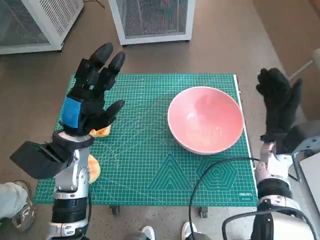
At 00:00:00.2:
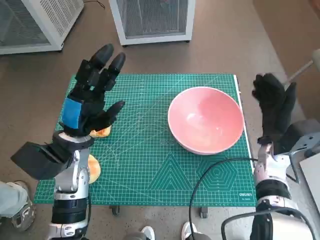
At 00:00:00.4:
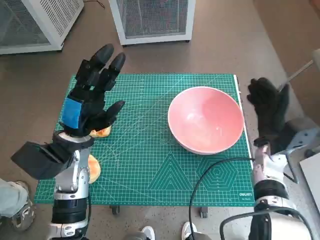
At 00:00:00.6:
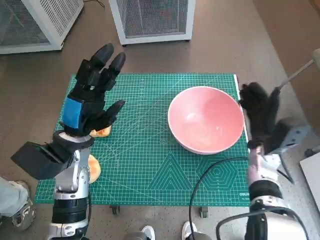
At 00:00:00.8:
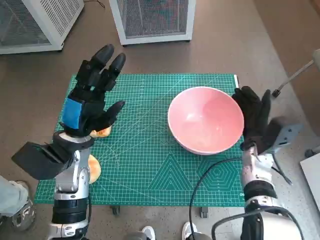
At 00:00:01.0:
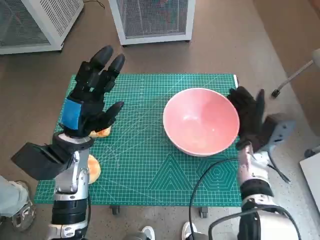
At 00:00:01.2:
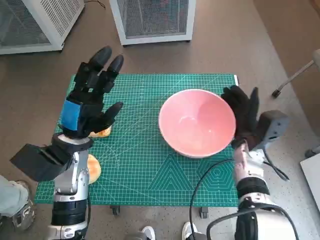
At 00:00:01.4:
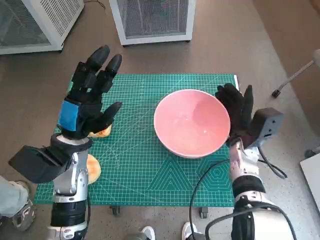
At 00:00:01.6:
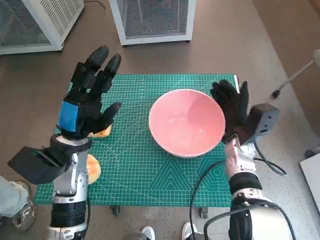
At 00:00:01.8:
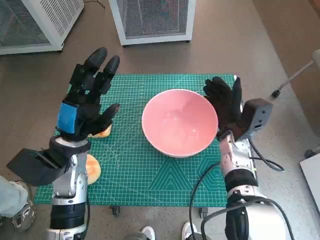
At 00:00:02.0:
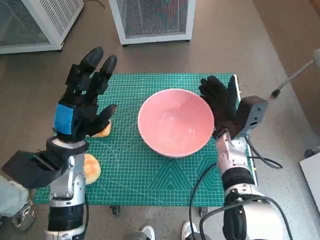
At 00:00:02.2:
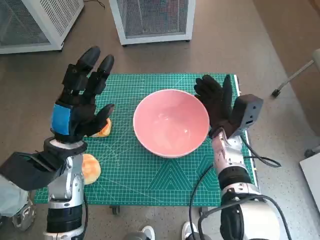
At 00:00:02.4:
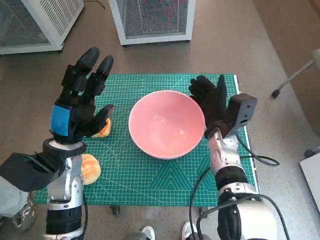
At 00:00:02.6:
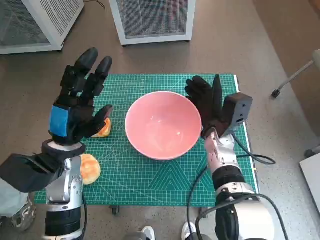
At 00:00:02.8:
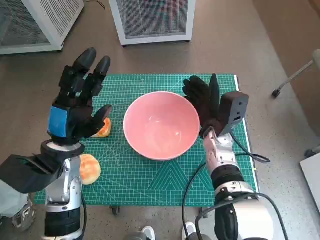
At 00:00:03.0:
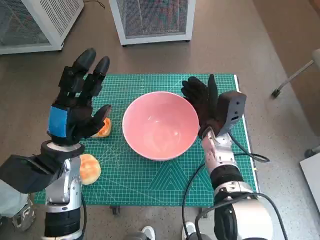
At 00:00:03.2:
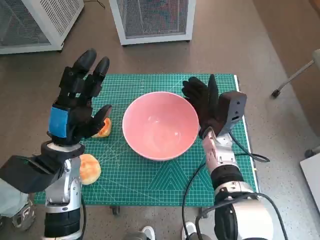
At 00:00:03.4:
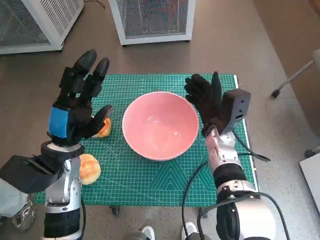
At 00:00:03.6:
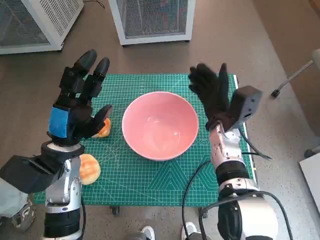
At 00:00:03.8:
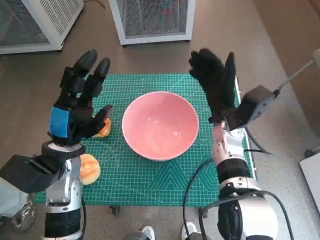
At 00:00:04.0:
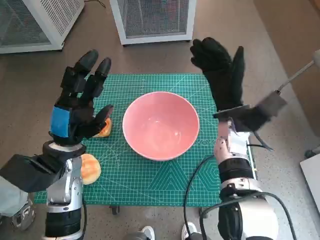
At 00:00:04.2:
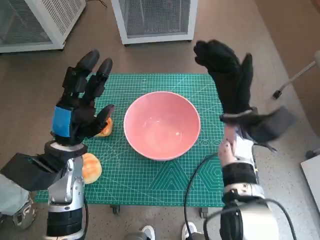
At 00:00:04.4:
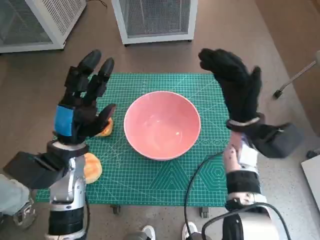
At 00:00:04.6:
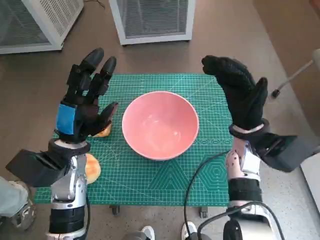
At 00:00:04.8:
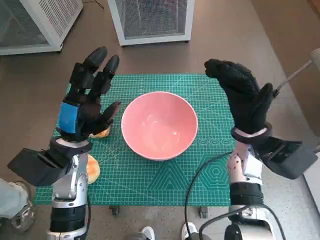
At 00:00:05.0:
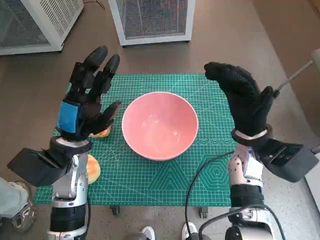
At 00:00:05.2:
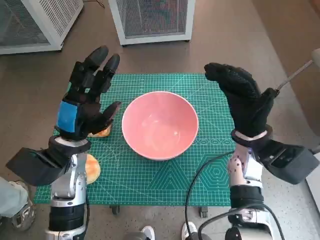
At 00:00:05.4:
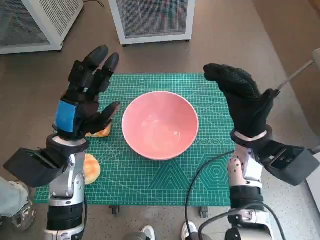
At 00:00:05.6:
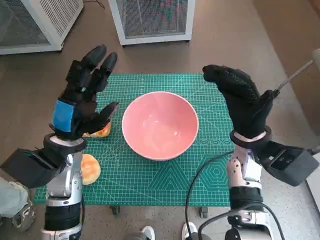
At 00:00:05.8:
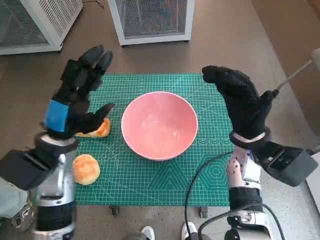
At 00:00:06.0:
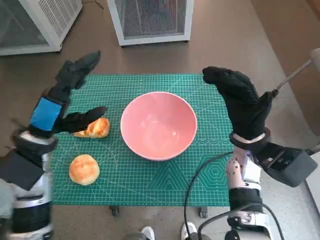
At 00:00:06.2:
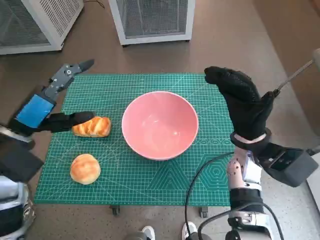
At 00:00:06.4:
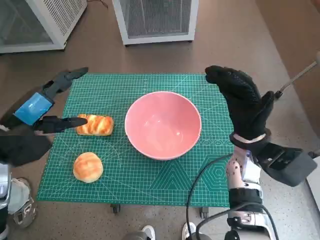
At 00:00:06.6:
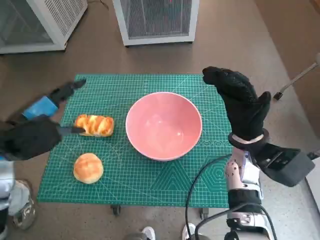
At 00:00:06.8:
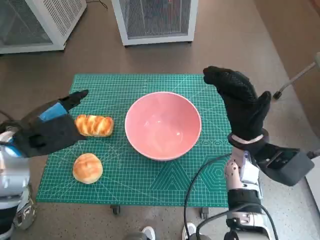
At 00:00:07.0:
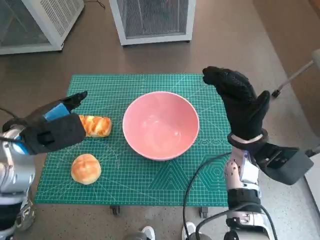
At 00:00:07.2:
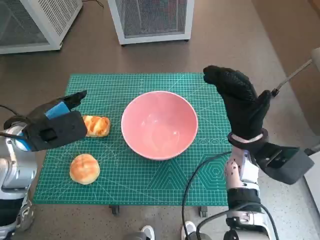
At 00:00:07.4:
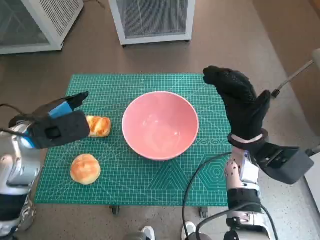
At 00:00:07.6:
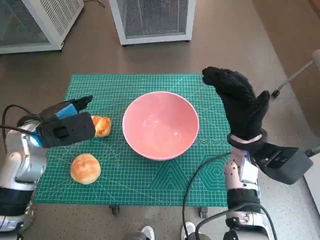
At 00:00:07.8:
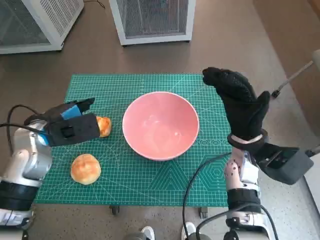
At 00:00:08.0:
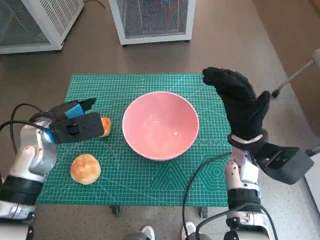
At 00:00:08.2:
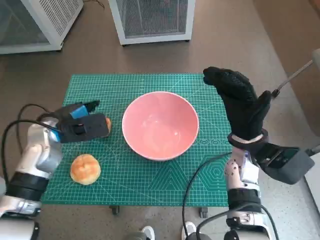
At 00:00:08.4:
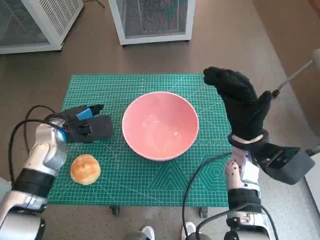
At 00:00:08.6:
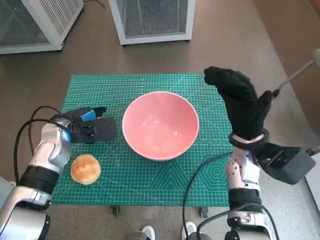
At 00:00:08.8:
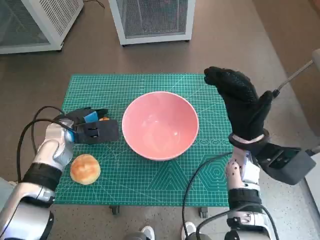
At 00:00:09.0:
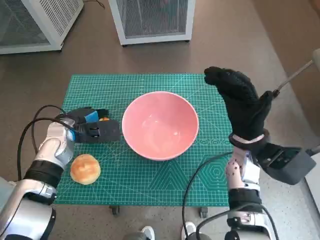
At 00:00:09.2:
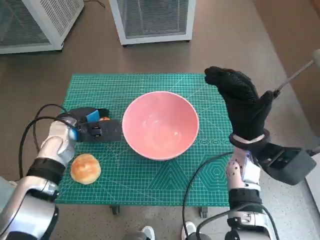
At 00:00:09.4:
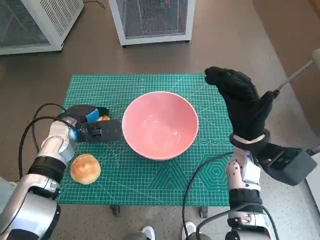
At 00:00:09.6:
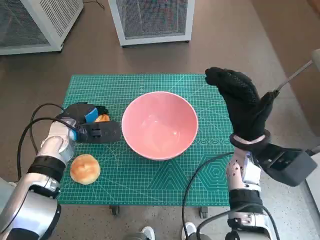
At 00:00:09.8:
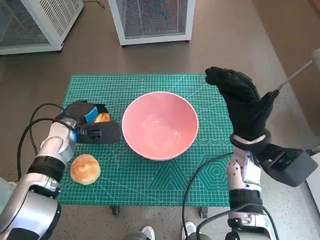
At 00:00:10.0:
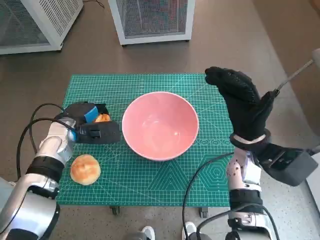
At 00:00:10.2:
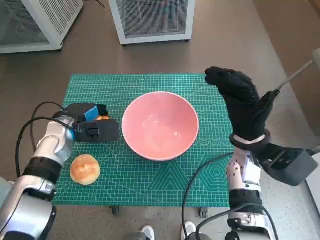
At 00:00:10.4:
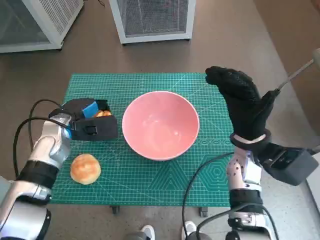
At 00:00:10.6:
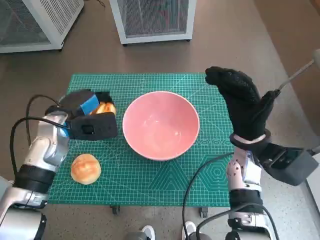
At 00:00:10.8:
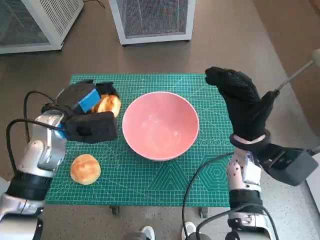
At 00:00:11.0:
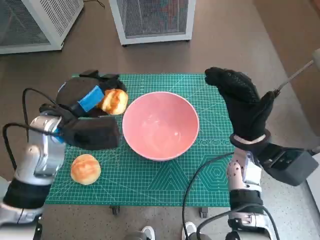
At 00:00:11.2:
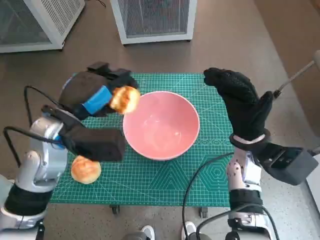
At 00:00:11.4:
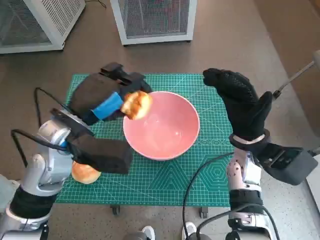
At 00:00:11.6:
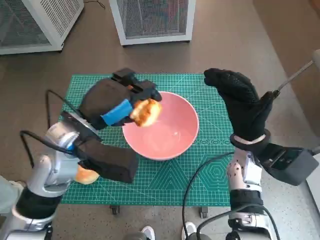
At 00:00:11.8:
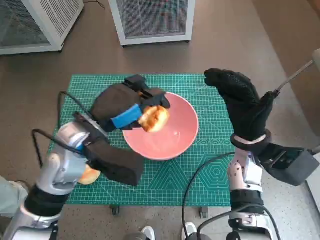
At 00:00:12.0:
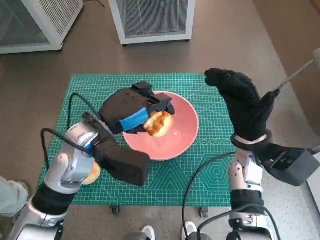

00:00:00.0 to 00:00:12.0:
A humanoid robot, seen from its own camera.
Task of the whole recording: Push the bowl into the center of the table and put the bread into the bowl.
Step, 00:00:00.0 to 00:00:03.4: Move the pink bowl to the center of table with right hand.
Step, 00:00:03.6 to 00:00:09.6: Grasp the long bread with left hand.
00:00:00.0 to 00:00:01.6: The right hand is displaced to the left by roughly 5 cm.
00:00:01.6 to 00:00:03.0: The right hand moves to the left, approximately 5 cm.
00:00:03.0 to 00:00:04.4: The right hand is displaced upward by about 5 cm.
00:00:04.4 to 00:00:06.0: The left hand shifts by roughly 5 cm.
00:00:07.6 to 00:00:09.0: The left hand shifts approximately 5 cm downward.
00:00:09.0 to 00:00:10.4: The hands make only small movements.
00:00:10.4 to 00:00:12.0: The left hand moves to the right, upward and backward, about 15 cm.

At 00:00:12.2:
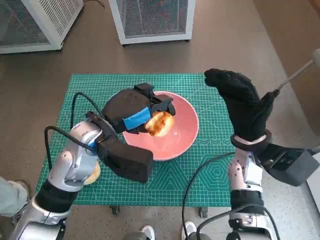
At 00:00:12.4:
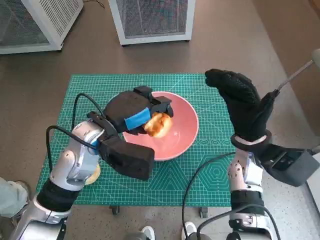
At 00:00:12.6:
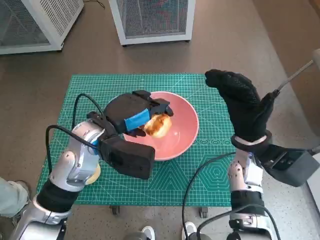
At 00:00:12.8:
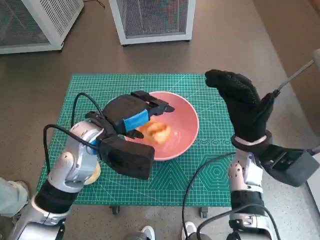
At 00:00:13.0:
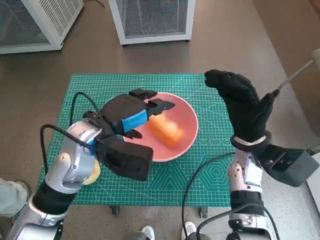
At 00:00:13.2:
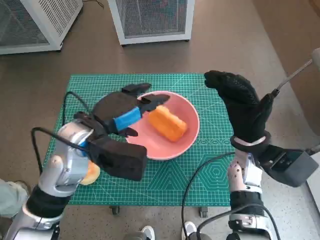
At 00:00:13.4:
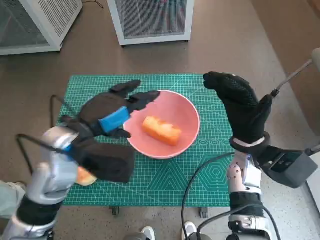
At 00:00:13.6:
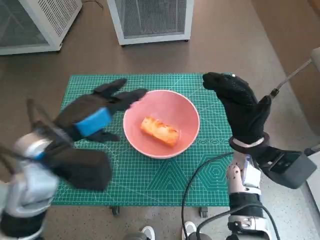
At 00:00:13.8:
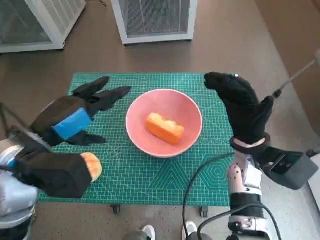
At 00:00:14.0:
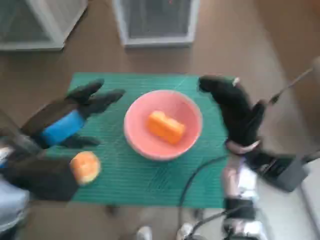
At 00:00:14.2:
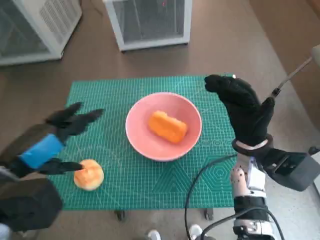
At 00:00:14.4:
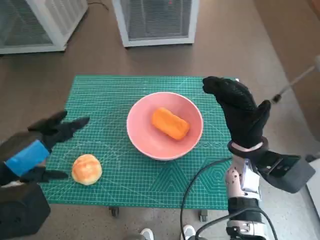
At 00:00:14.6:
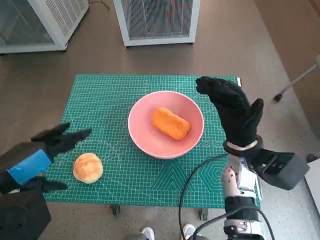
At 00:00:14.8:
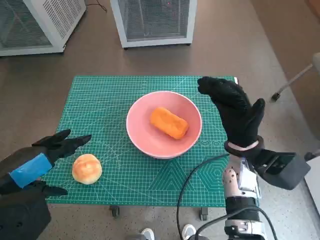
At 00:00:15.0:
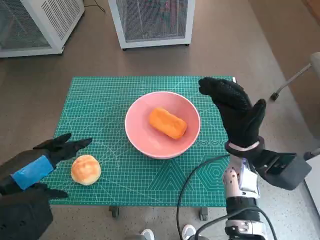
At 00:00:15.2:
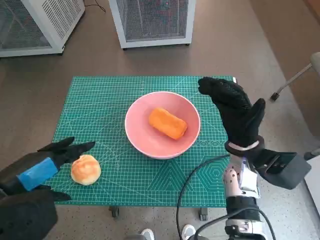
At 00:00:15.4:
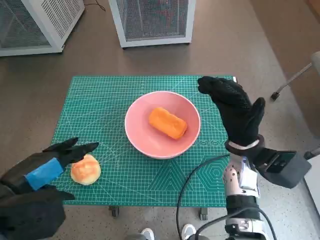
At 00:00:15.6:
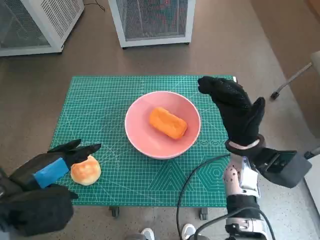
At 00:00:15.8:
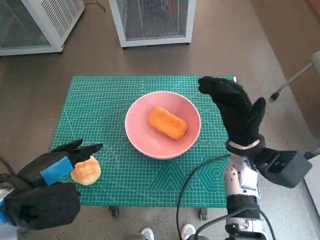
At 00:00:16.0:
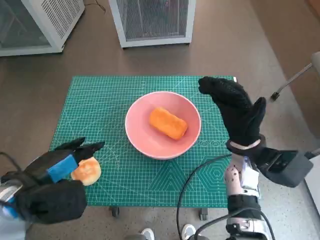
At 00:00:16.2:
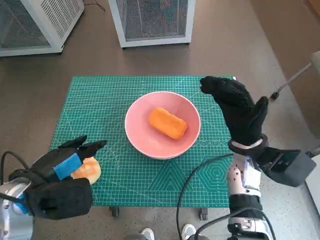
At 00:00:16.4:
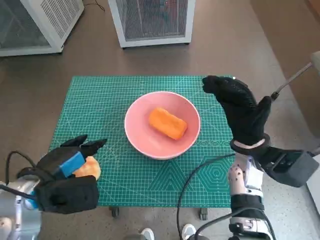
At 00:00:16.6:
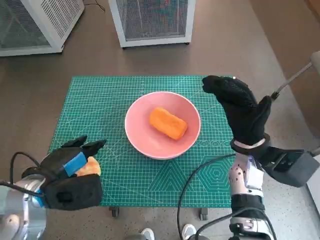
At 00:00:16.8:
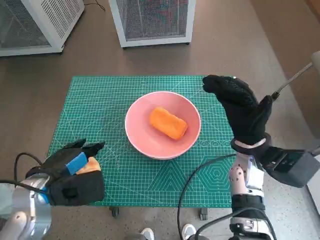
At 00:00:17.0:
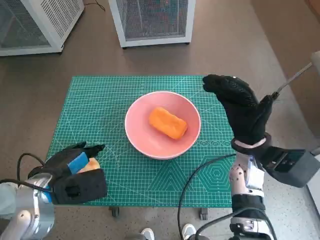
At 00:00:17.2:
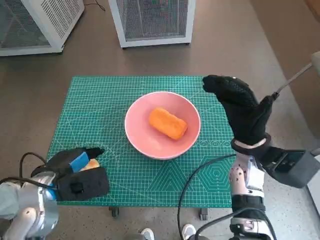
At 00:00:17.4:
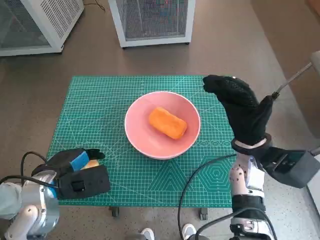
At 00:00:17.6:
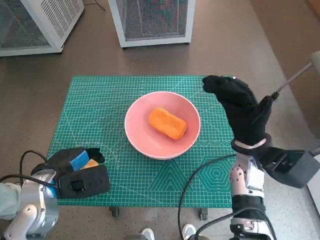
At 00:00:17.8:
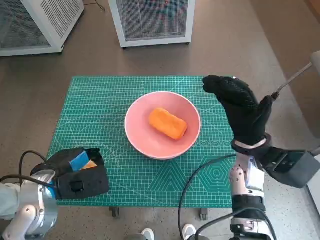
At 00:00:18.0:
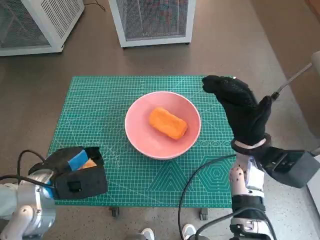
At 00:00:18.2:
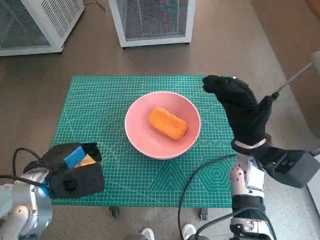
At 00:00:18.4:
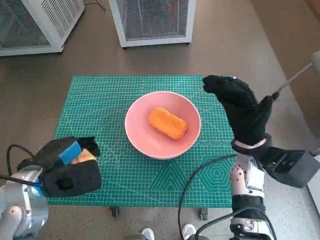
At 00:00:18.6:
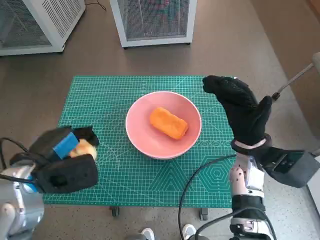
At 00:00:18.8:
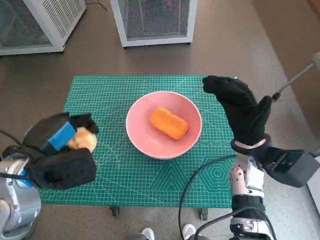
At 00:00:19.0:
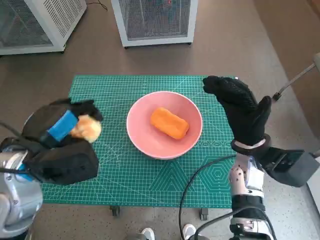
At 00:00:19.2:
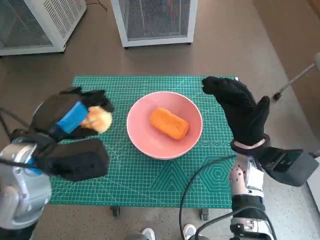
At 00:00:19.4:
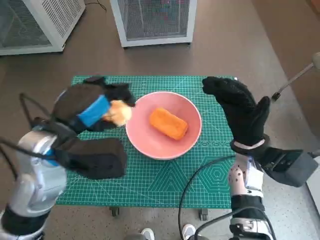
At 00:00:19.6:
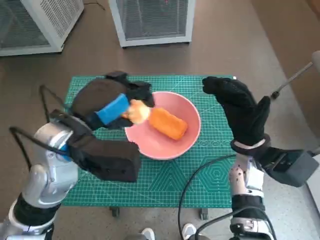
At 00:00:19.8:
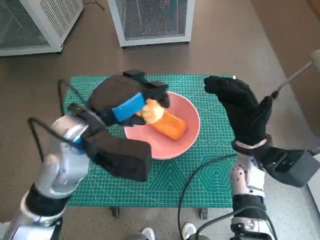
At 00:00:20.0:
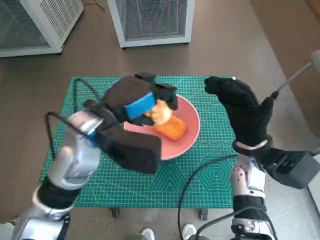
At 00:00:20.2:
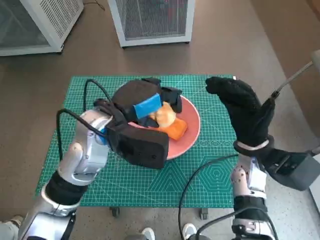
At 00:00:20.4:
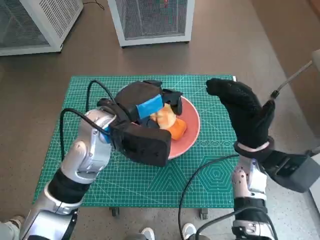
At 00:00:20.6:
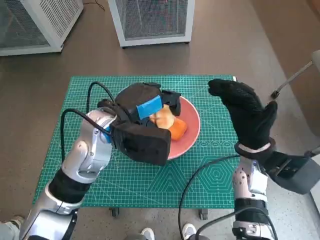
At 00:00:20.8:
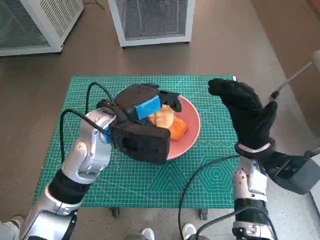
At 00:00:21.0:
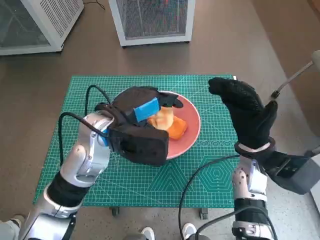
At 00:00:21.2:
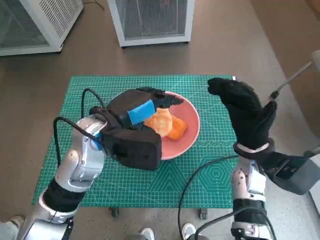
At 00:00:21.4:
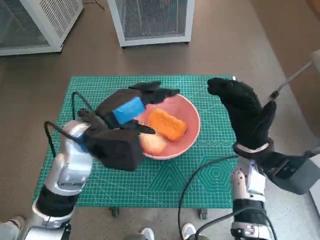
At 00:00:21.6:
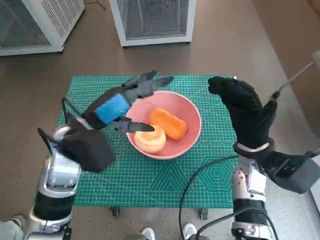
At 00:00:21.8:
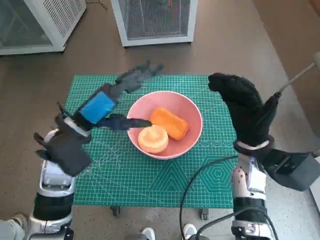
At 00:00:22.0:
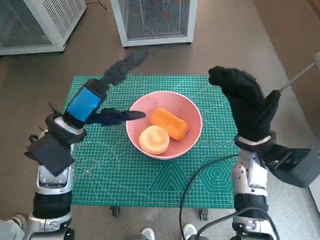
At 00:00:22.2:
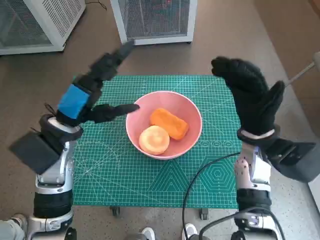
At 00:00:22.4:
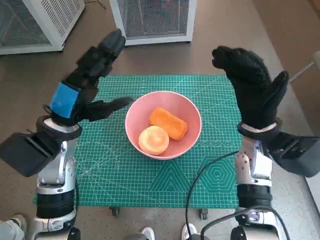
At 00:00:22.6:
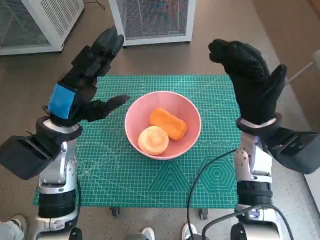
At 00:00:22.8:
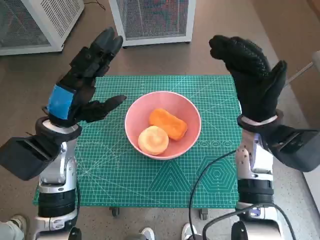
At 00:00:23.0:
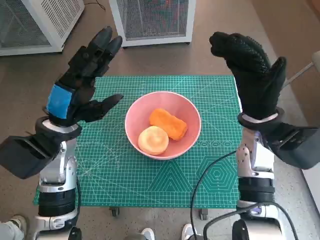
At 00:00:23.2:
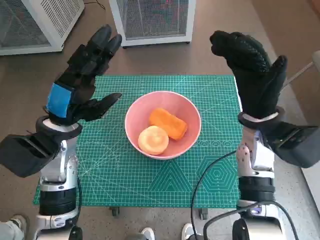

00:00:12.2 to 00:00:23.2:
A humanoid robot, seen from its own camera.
Task of the whole recording: Push the bowl into the center of the table and put the bread into the bowl.
Step, 00:00:13.0 to 00:00:17.6: Grasp the round bread with left hand.
Step, 00:00:17.8 to 00:00:21.2: Place the round bread in pink bowl with left hand.
00:00:12.2 to 00:00:13.8: The left hand moves to the left and backward, roughly 10 cm.
00:00:13.8 to 00:00:15.4: The left hand shifts approximately 5 cm backward.
00:00:15.4 to 00:00:17.0: The left hand is displaced downward by roughly 10 cm.
00:00:17.0 to 00:00:18.4: The hands stay close to where they were, moving slightly.
00:00:18.4 to 00:00:20.0: The left hand travels to the right, upward and forward by roughly 15 cm.
00:00:21.6 to 00:00:23.2: The right hand goes approximately 5 cm upward.
